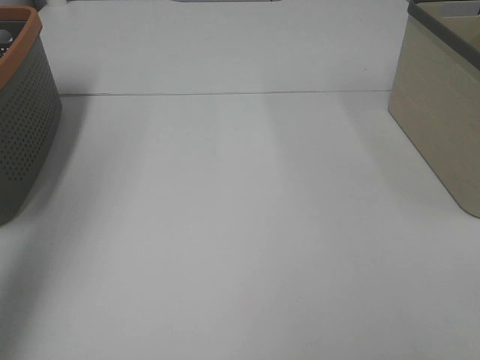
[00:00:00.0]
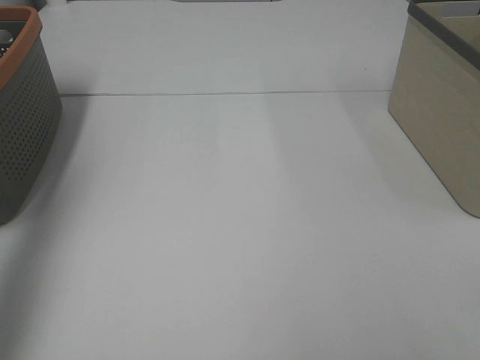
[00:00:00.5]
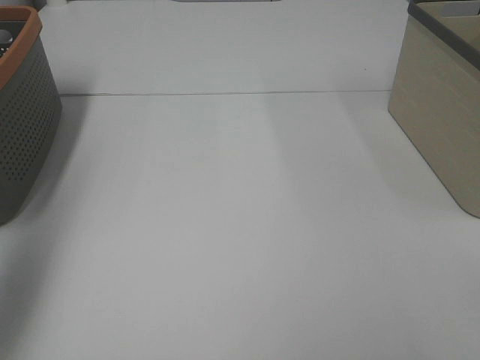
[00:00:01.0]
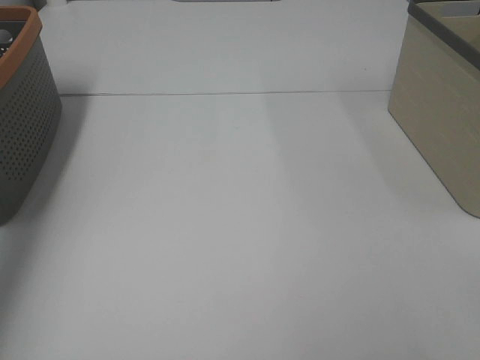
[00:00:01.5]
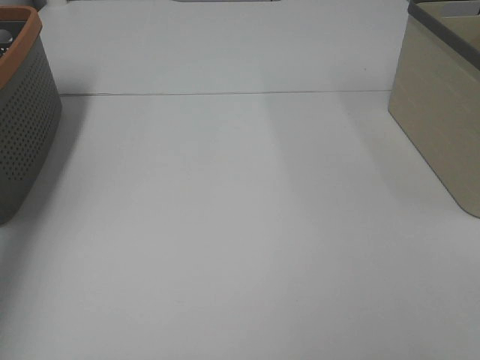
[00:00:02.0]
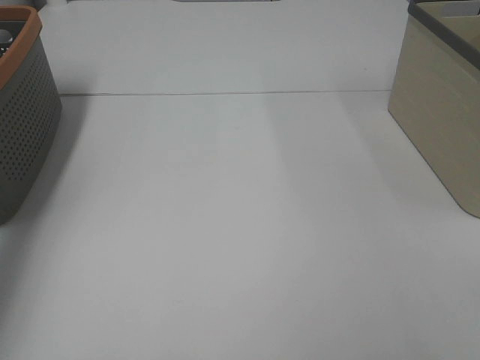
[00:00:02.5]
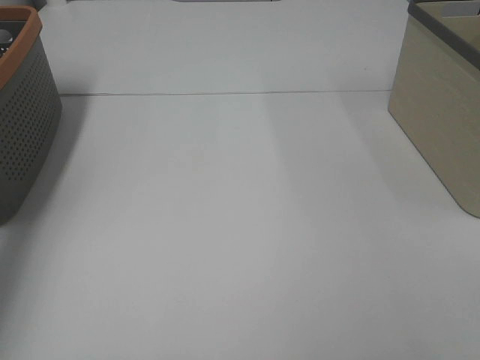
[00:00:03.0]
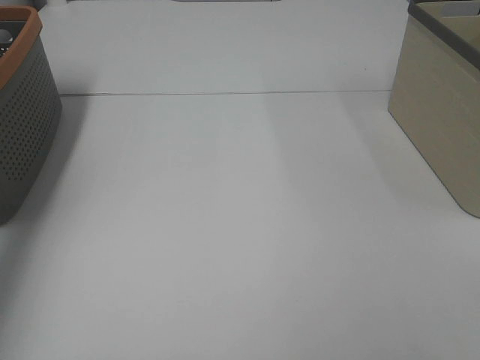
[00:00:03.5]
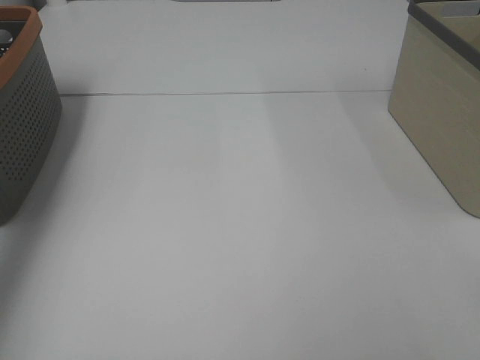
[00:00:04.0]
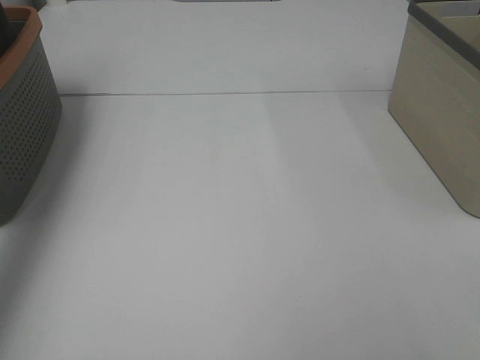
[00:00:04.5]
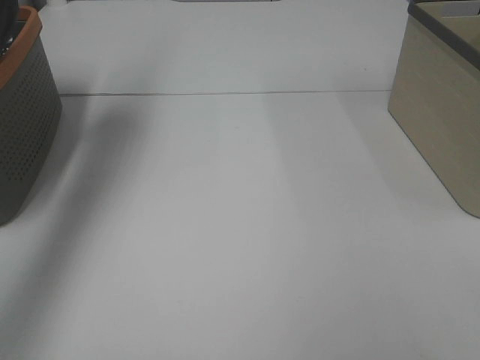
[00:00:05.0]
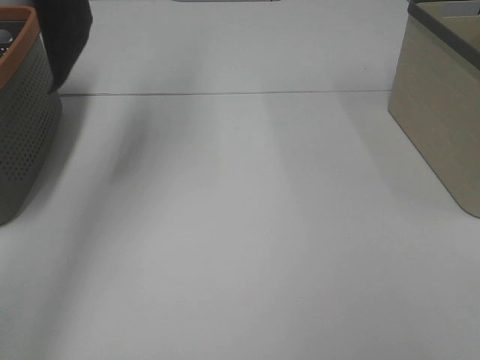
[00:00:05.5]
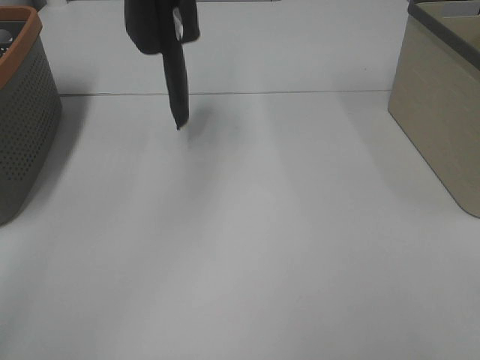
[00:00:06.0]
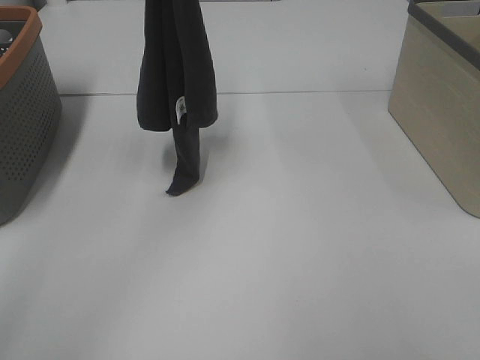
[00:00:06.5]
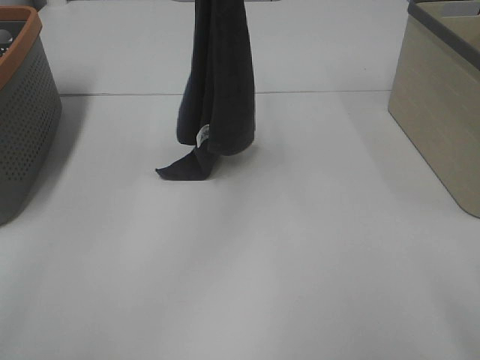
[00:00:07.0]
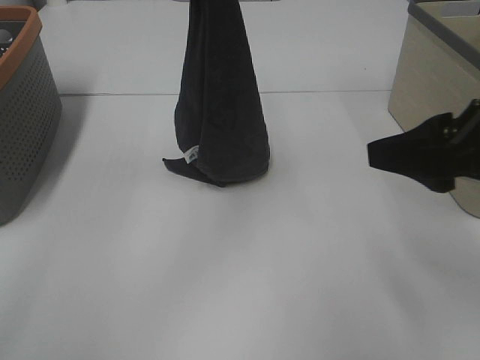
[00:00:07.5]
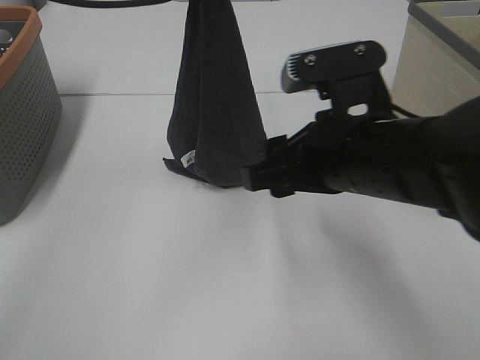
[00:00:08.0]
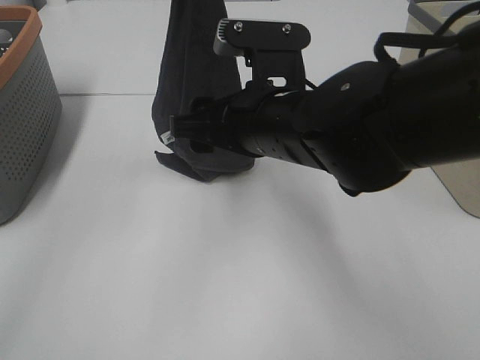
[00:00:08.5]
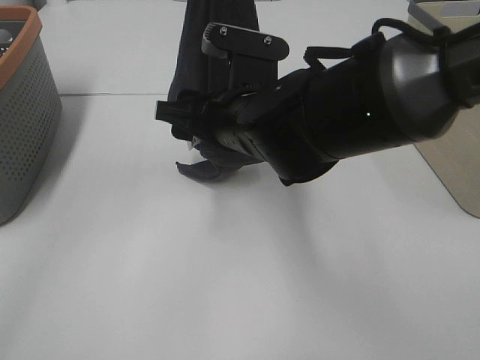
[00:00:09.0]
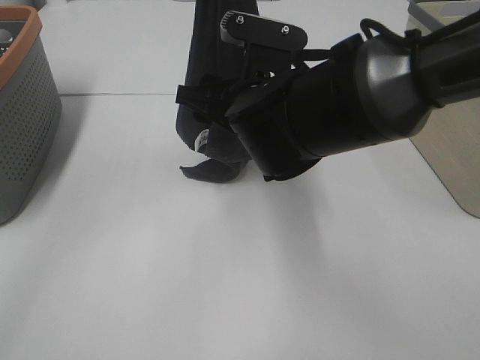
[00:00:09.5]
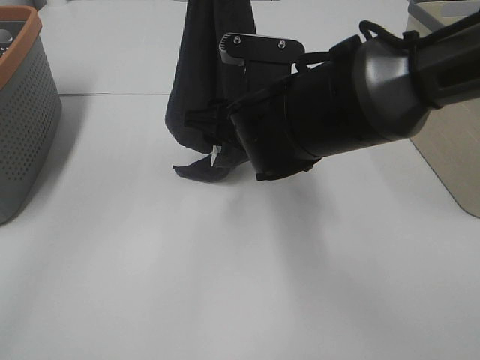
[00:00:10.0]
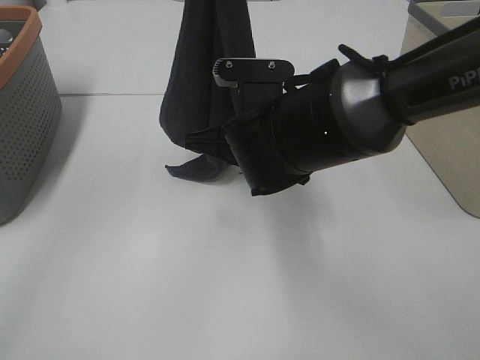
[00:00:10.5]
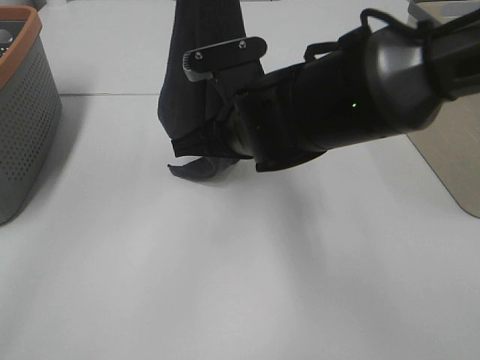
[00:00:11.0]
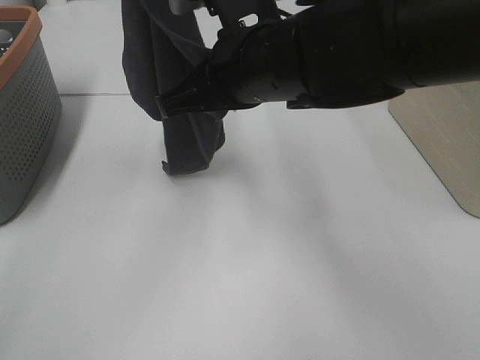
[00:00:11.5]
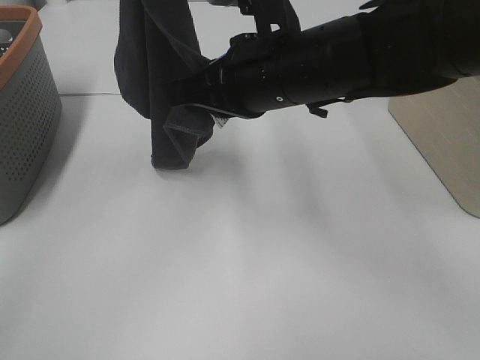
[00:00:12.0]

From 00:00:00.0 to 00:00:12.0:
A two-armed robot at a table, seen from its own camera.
Task of the whole recording: Remove the towel and place it.
Step, from 00:00:05.5 to 00:00:09.5: Right hand: grab a corner of the grey towel and straighten it.
From 00:00:00.0 to 00:00:02.0: The left gripper is displaced forward and downward by roughly 25 cm.
From 00:00:04.0 to 00:00:06.0: The left gripper travels to the right and upward by some 25 cm.
From 00:00:06.0 to 00:00:08.0: The left gripper shifts about 15 cm downward and to the right. Meanwhile the right gripper heads forward and to the left, covering approximately 30 cm.
From 00:00:08.0 to 00:00:10.0: The right gripper is displaced forward and to the left by some 10 cm.
From 00:00:10.0 to 00:00:12.0: The left gripper travels to the left by roughly 10 cm; the right gripper moves upward, roughly 5 cm, and closes up.

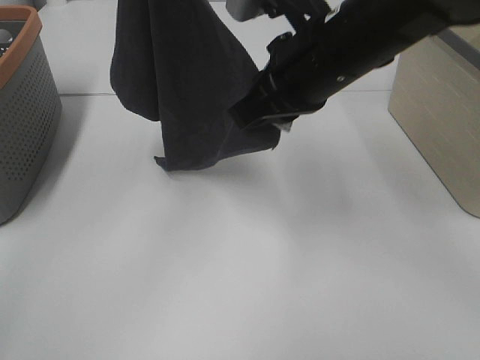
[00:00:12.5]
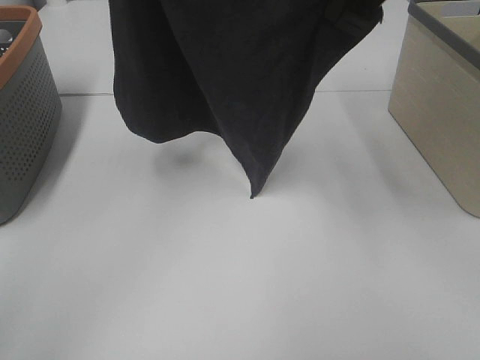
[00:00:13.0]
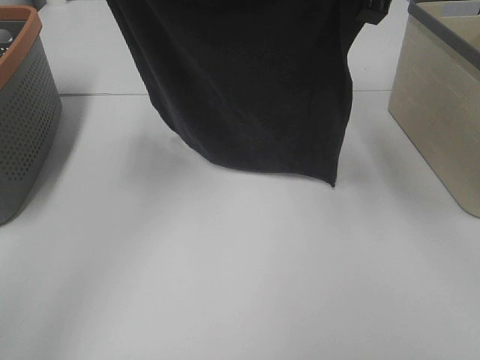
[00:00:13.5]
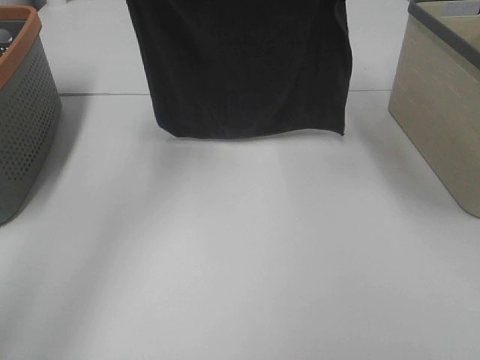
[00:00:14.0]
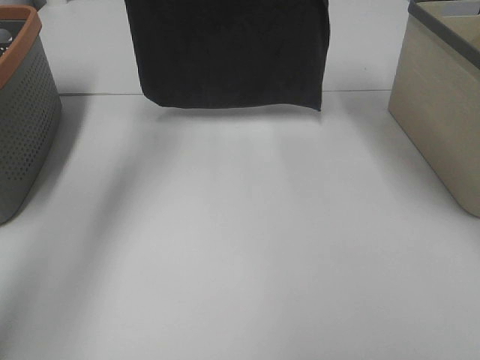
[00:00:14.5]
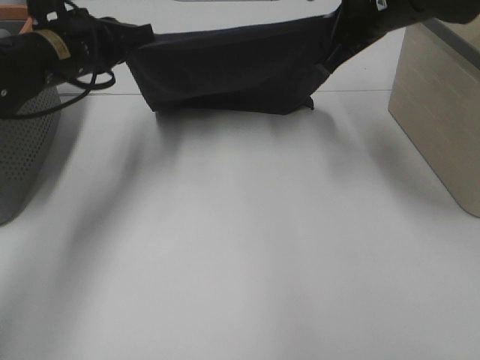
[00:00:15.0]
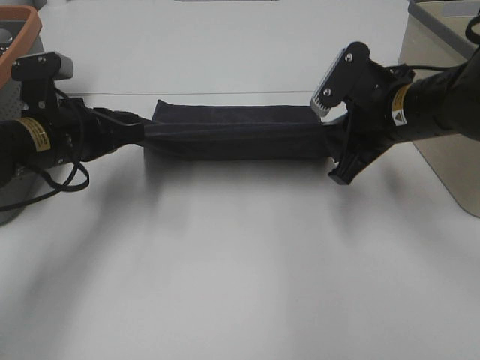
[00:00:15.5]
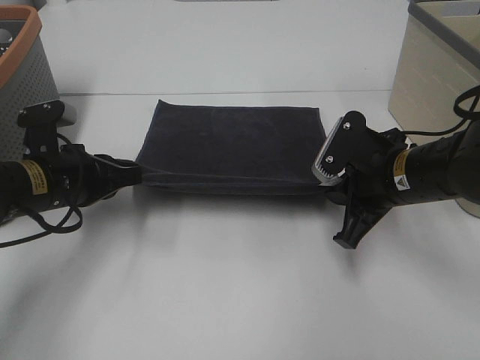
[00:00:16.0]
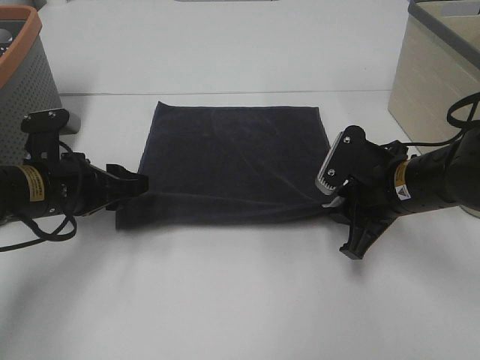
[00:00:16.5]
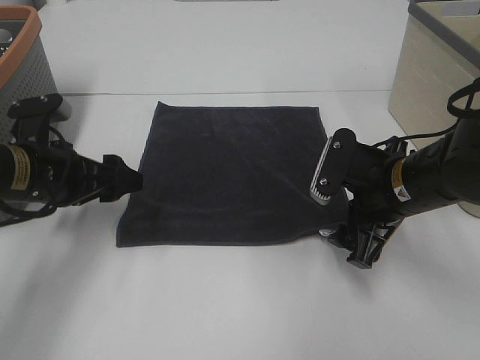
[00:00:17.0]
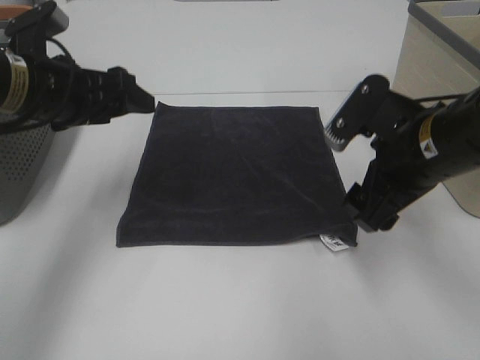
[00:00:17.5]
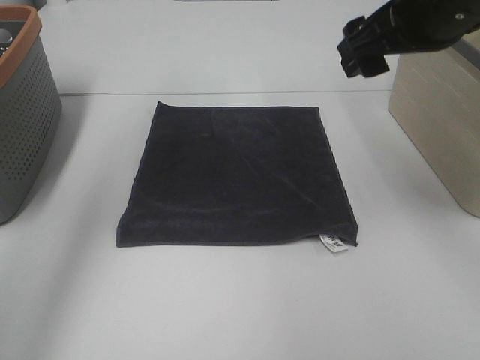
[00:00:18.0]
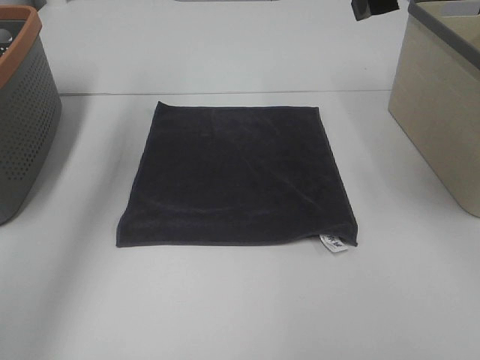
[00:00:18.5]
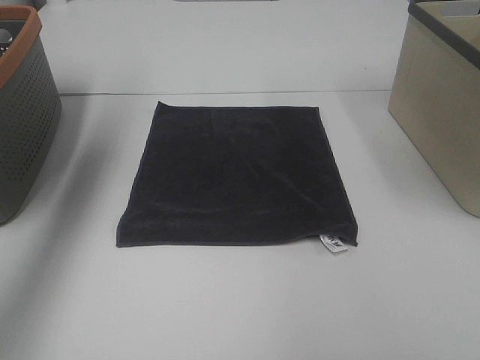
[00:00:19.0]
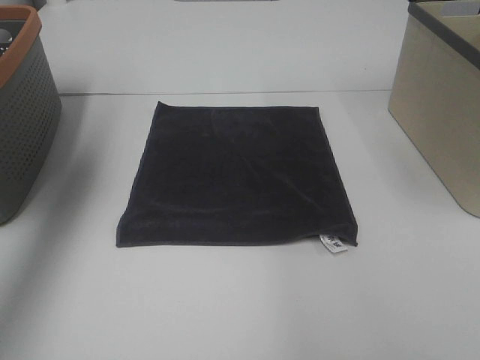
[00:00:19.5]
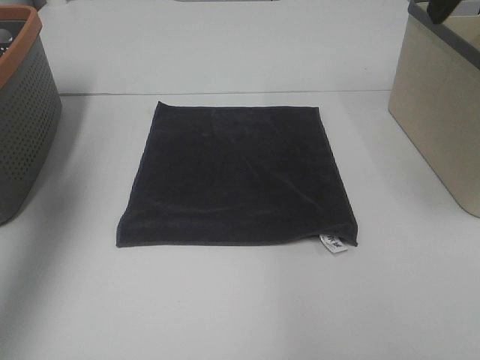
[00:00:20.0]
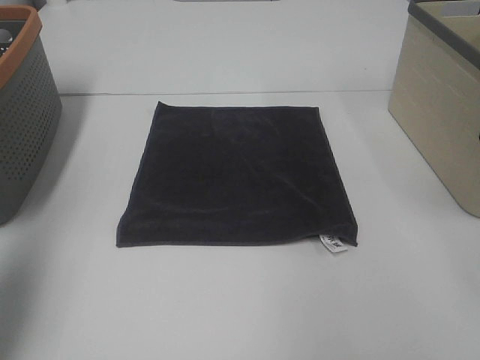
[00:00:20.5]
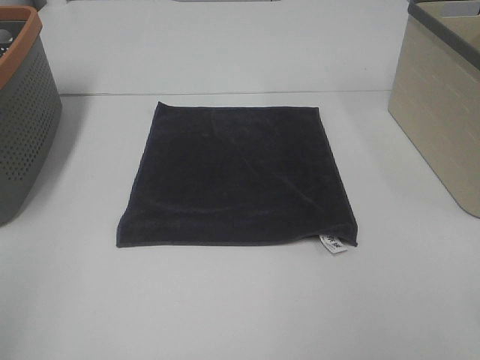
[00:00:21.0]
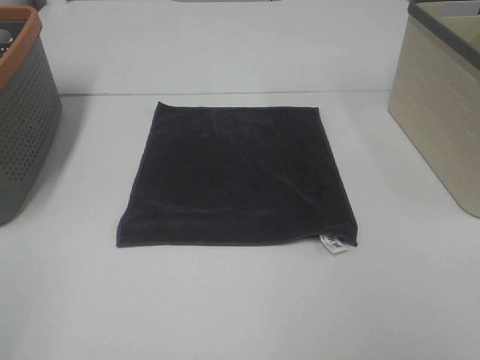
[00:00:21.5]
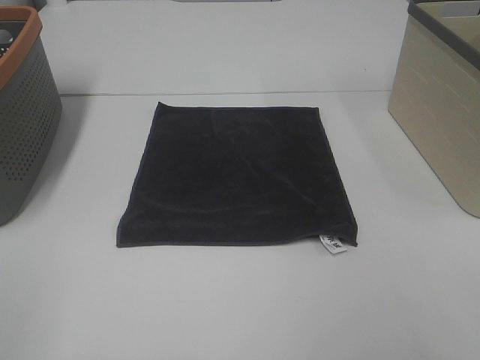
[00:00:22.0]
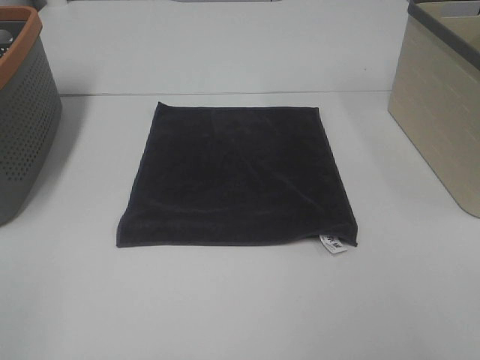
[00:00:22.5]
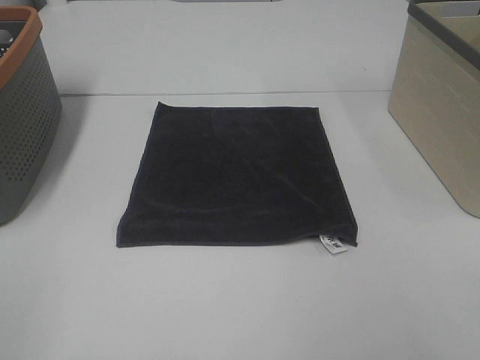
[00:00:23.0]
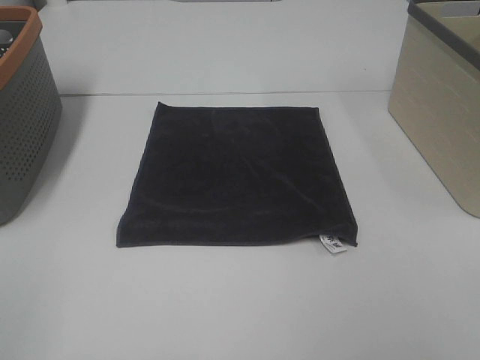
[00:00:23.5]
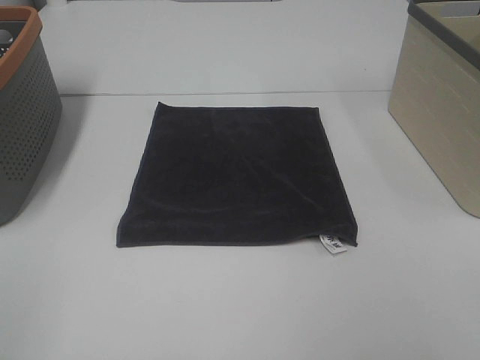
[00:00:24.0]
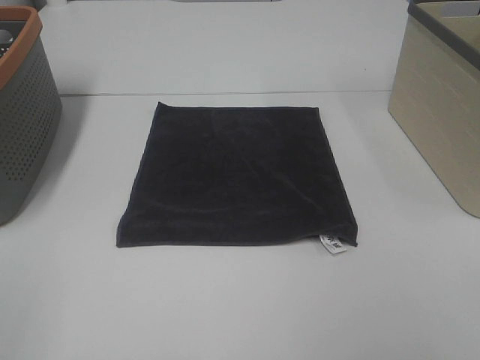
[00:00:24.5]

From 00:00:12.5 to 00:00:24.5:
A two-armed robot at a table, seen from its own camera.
Task of the whole recording: Remove the towel and place it.
From 00:00:12.5 to 00:00:14.5: The right gripper moves forward and upward, some 20 cm, while the left gripper travels forward and downward by approximately 20 cm.
From 00:00:14.5 to 00:00:16.5: The two grippers go roughly 30 cm downward and backward. The right gripper opens. Meanwhile the left gripper opens.
From 00:00:16.5 to 00:00:18.5: The left gripper is displaced upward and forward by some 25 cm. Meanwhile the right gripper heads upward, covering some 25 cm, and opens its fingers.
From 00:00:18.5 to 00:00:20.5: The left gripper shifts approximately 25 cm backward and to the left, while the right gripper heads to the right and backward, covering some 10 cm.
From 00:00:20.5 to 00:00:22.5: The left gripper goes roughly 20 cm backward.
